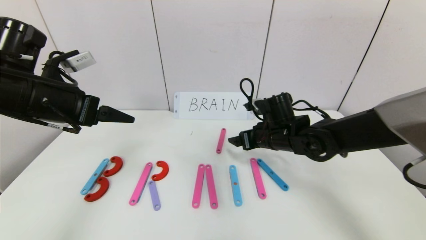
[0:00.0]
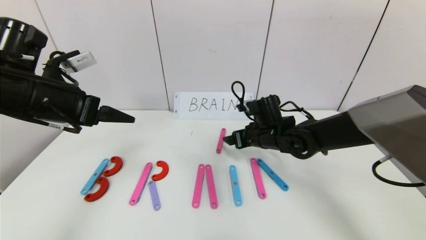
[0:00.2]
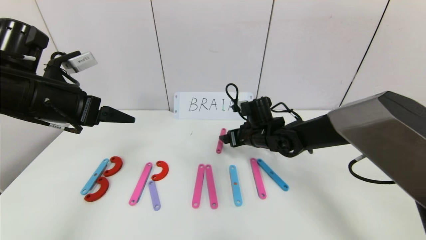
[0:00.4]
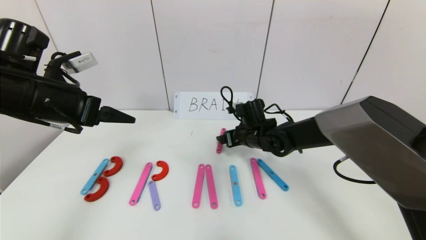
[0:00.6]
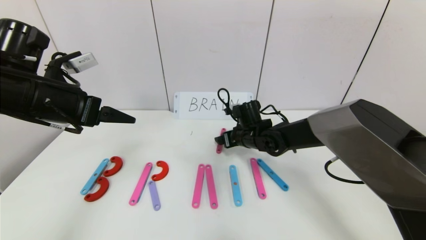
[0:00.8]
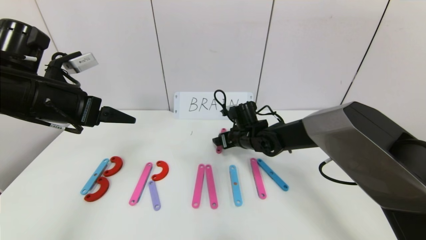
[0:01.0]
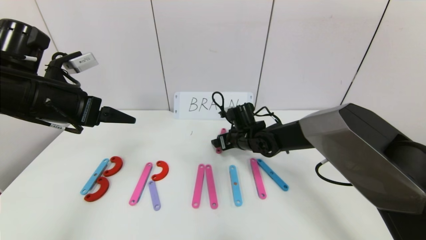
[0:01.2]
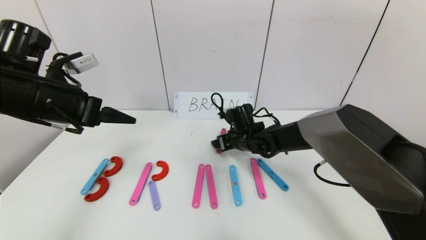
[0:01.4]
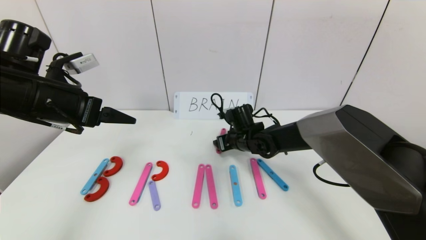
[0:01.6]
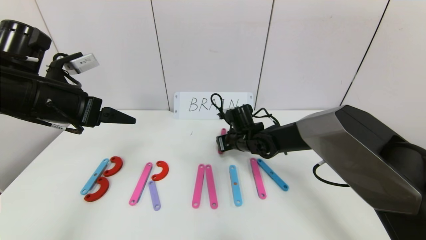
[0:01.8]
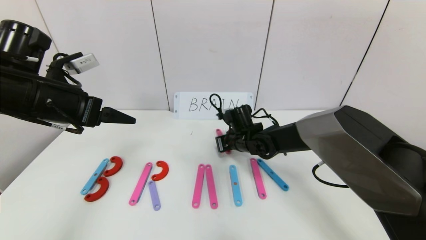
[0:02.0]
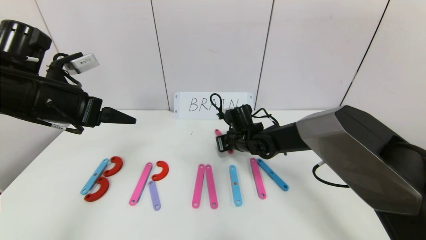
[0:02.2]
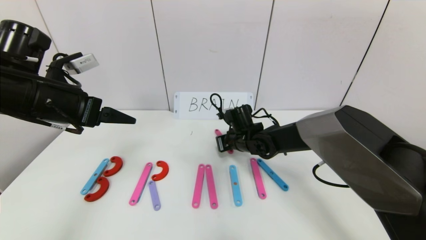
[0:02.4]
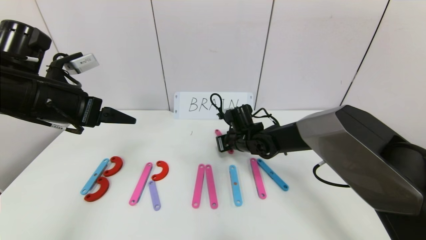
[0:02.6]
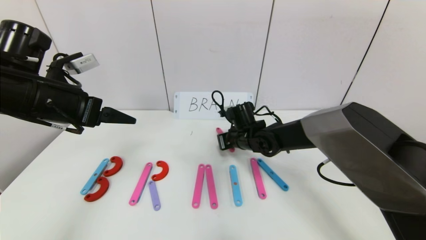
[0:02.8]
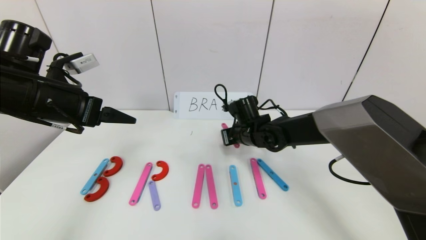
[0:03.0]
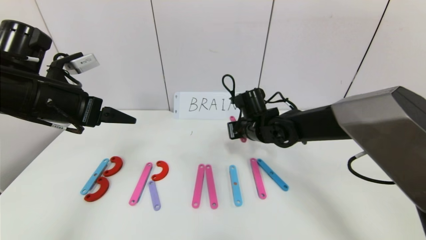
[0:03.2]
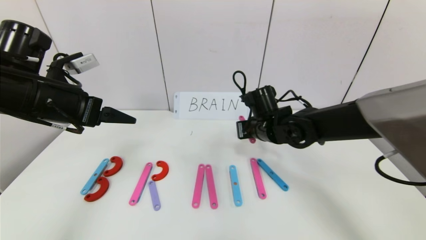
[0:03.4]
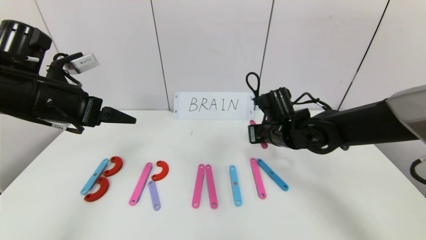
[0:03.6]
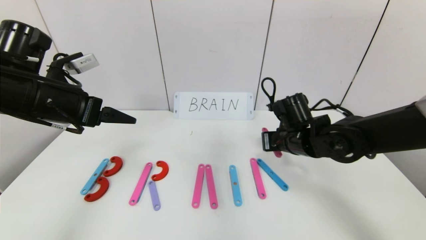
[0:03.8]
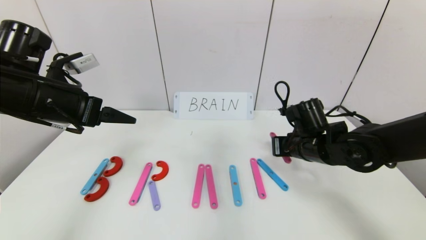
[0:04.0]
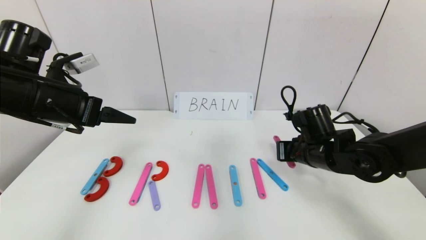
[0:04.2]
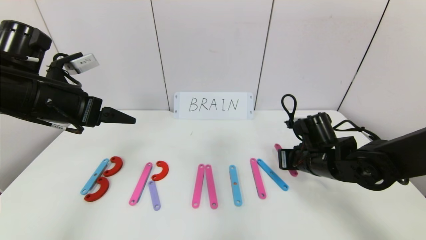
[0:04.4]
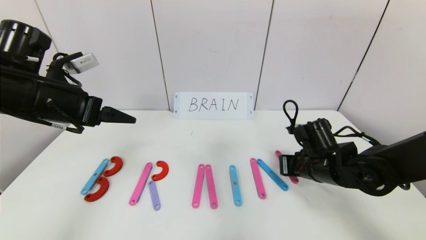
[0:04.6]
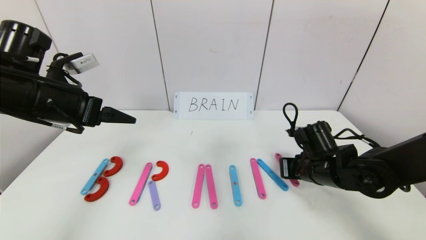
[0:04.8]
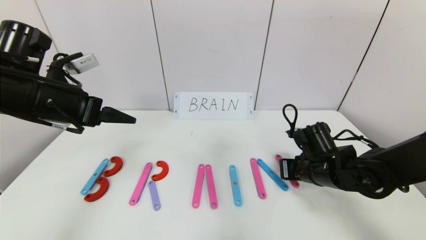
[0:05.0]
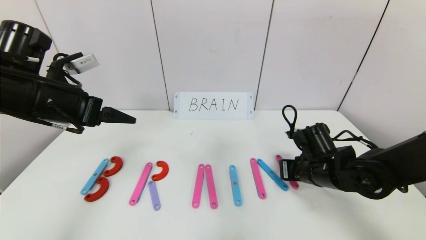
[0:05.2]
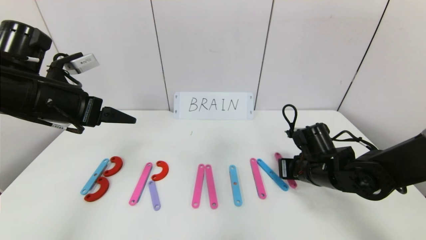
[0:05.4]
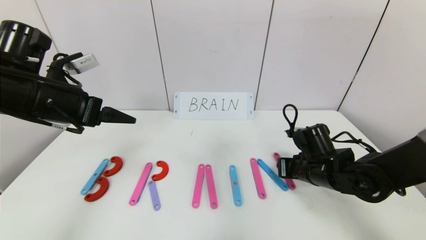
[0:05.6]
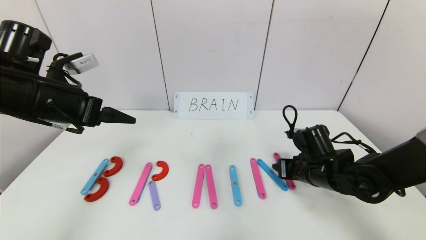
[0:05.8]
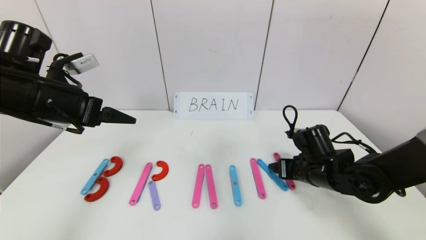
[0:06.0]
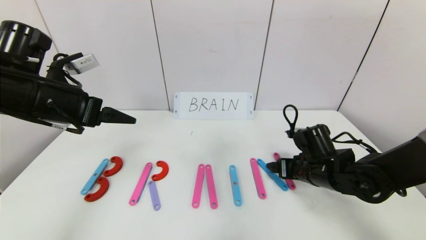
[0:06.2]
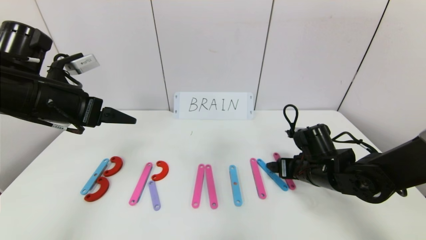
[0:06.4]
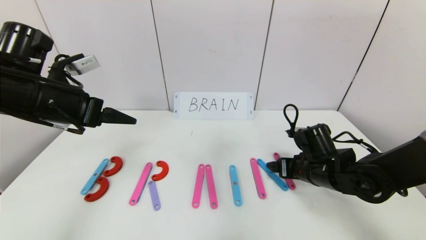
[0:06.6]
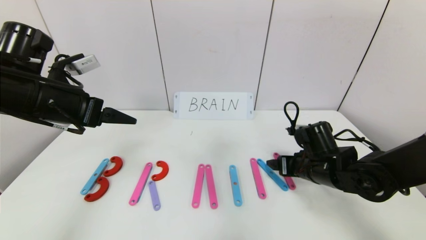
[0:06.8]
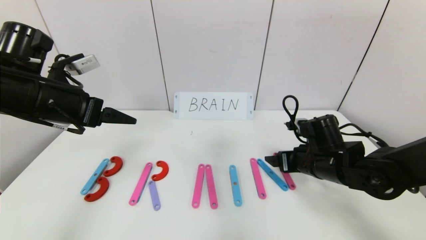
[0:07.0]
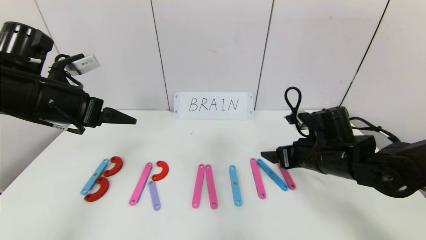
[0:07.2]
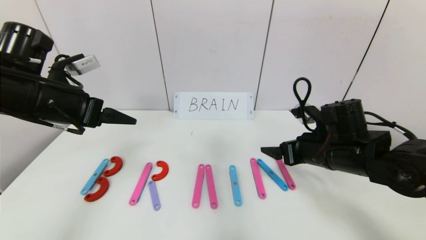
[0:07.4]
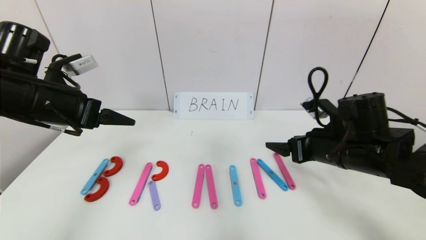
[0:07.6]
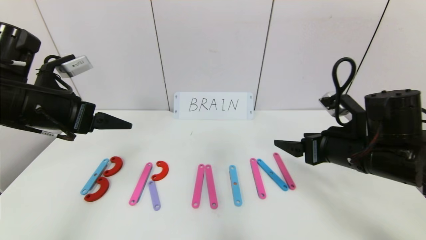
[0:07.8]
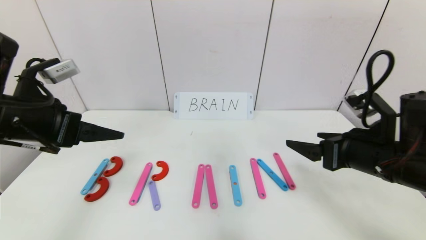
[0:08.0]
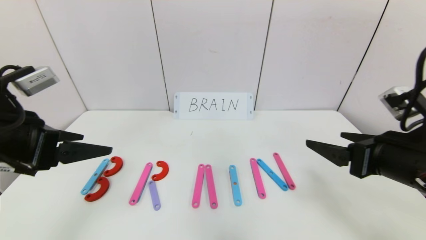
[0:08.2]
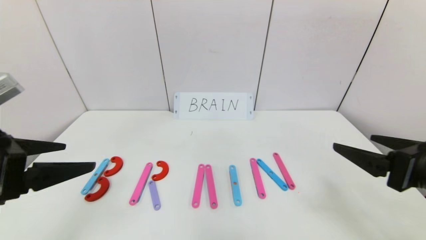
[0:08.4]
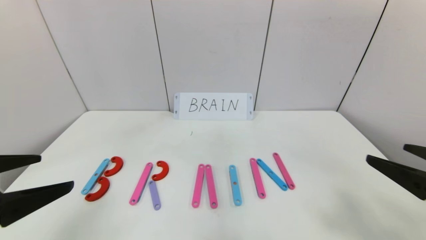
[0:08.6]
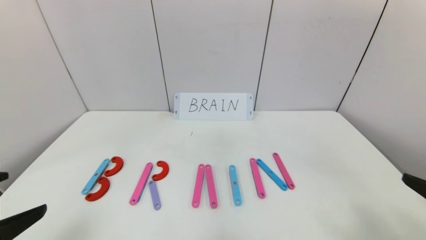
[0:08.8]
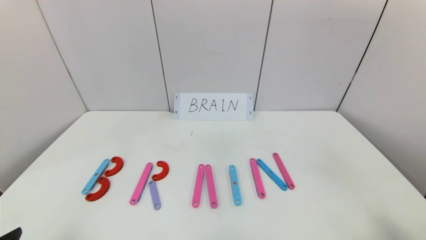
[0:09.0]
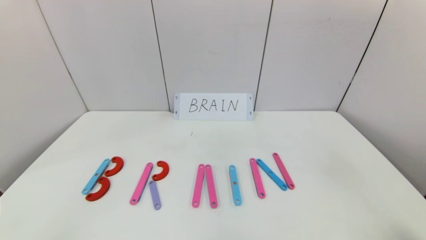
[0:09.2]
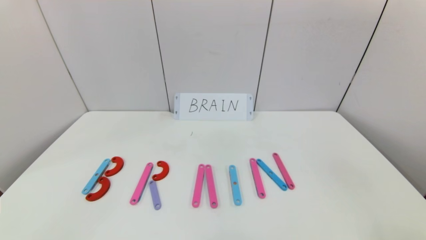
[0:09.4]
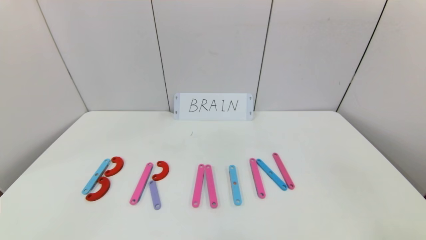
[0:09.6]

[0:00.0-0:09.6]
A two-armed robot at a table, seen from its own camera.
Task of the whole recording: rearrange the word baai as brain.
Step, 0:00.0 to 0:06.0: Place the character N after character I.
0:00.0 to 0:01.6: The right gripper shifts some 10 cm to the left, downward and forward.
0:01.6 to 0:03.2: The right gripper travels upward by some 5 cm, and closes its fingers.
0:03.2 to 0:04.8: The right gripper is displaced to the right and backward by approximately 15 cm.
0:04.8 to 0:06.4: The right gripper opens up.
0:06.4 to 0:08.0: The right gripper is displaced upward and backward by roughly 15 cm, while the left gripper is displaced backward by approximately 5 cm.
0:08.0 to 0:09.6: Both grippers move backward, about 25 cm.
